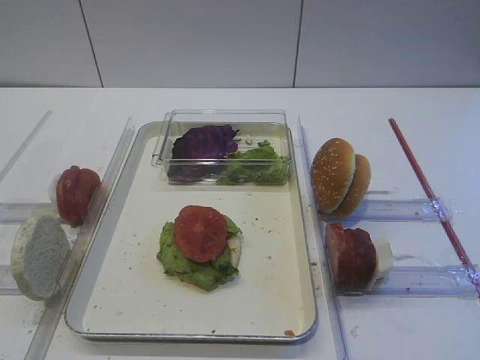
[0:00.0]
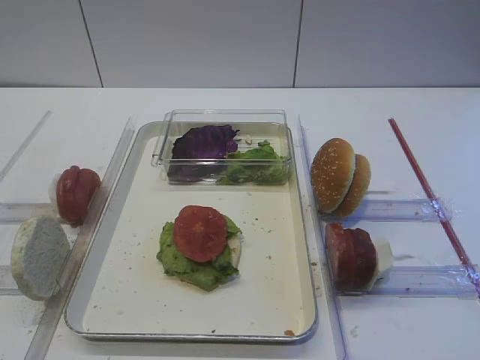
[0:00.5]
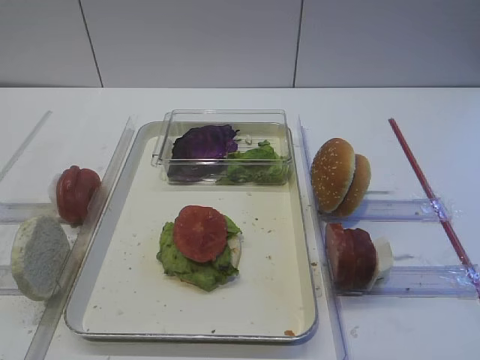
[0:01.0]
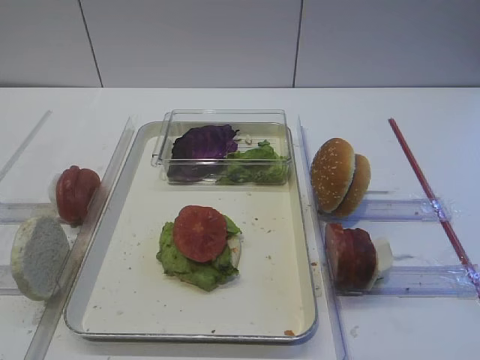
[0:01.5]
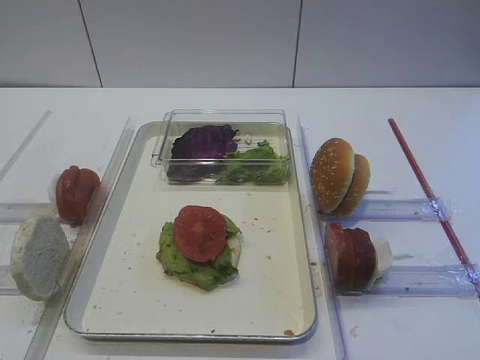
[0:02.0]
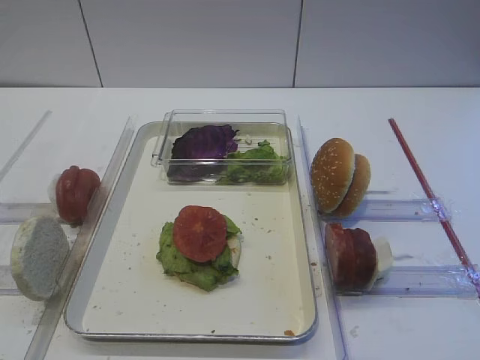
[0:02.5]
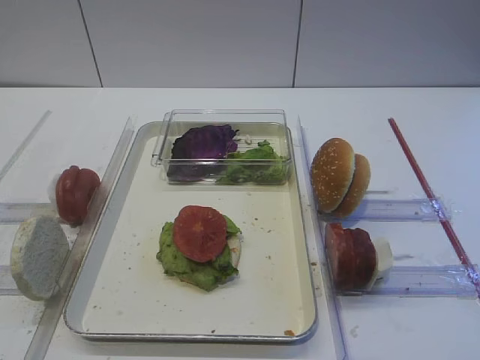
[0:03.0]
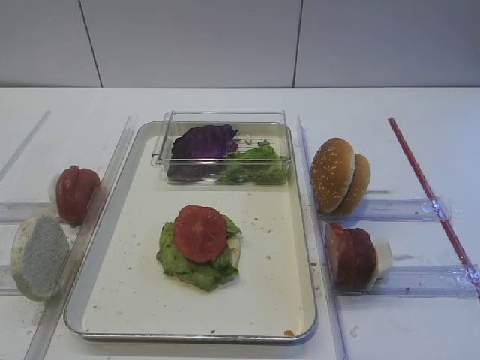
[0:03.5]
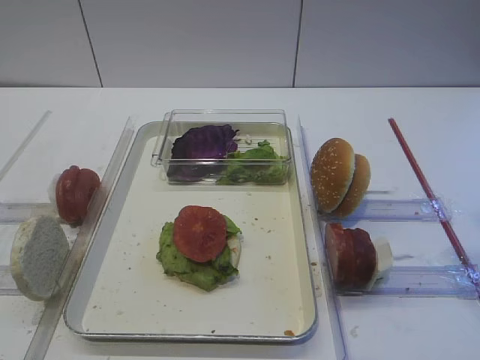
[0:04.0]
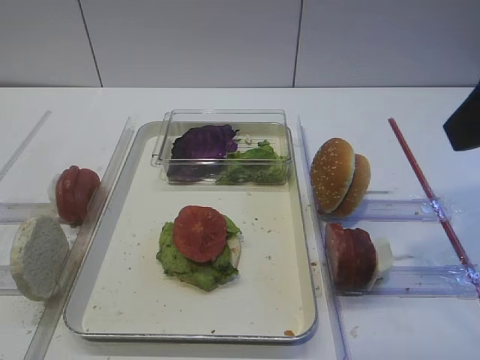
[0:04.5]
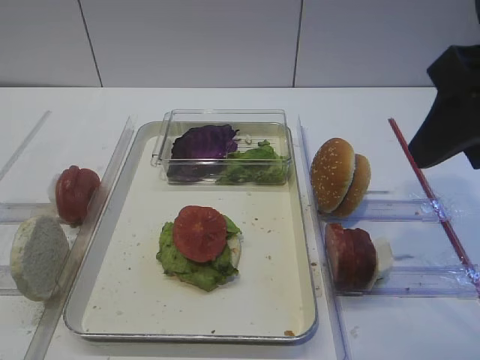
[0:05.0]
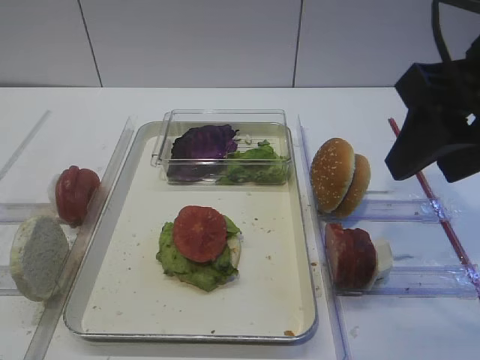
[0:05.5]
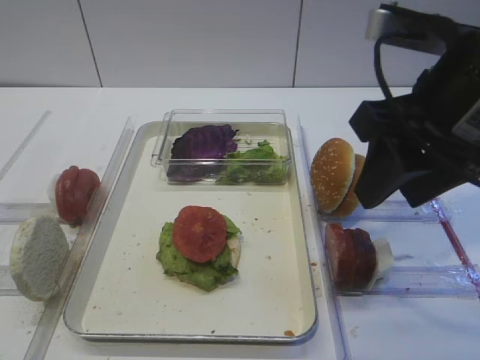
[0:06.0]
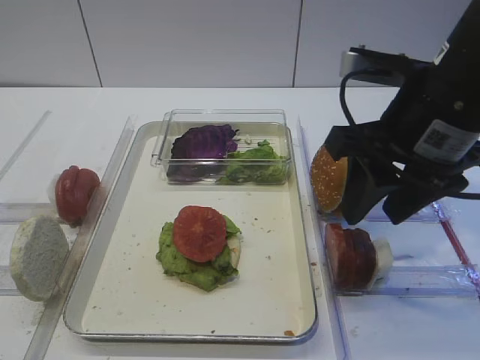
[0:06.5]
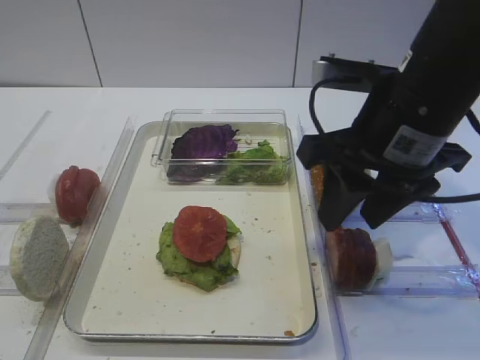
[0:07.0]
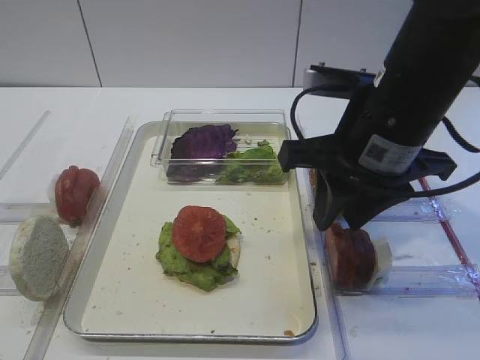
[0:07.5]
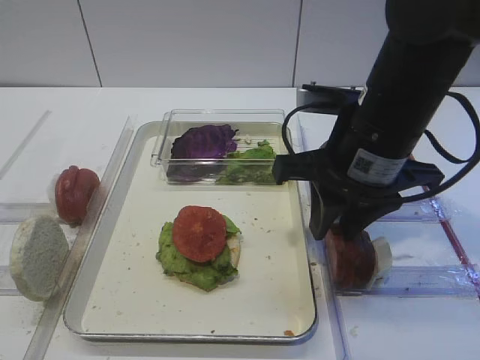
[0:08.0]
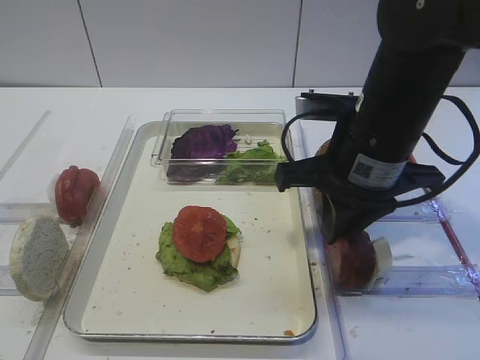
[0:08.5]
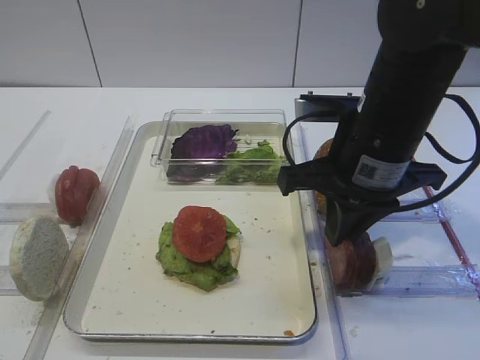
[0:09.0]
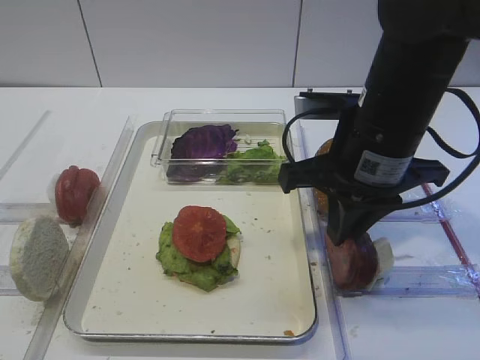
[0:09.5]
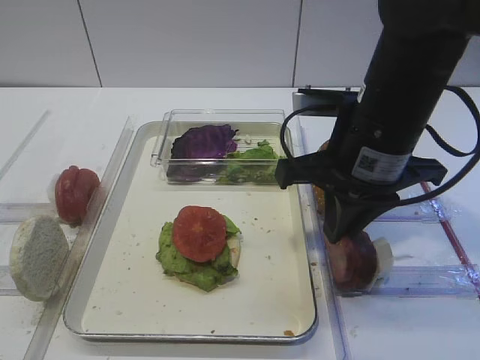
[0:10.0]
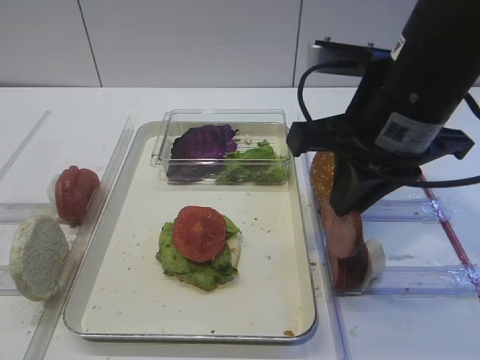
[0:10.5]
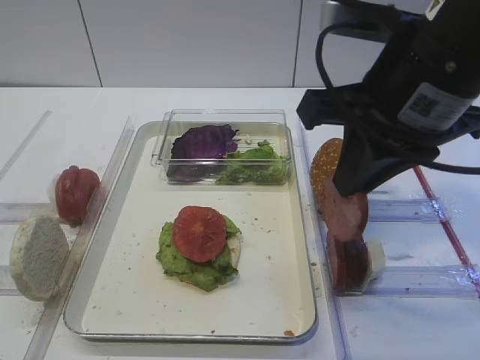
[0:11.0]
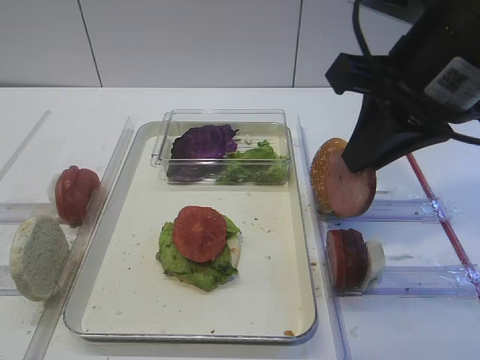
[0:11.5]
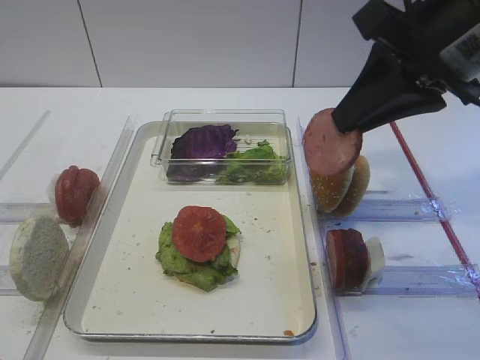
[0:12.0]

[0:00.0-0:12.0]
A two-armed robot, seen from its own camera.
Step, 0:00.0 to 0:10.5: Pick up the cutlet with the right gripper.
0:04.0 to 0:06.0: The right gripper shifts some 15 cm forward, downward and to the left.
0:06.0 to 0:08.0: The right gripper travels downward by some 5 cm.
0:08.0 to 0:10.0: The right gripper closes up.
0:10.0 to 0:12.0: The right gripper shifts approximately 10 cm upward and to the right.

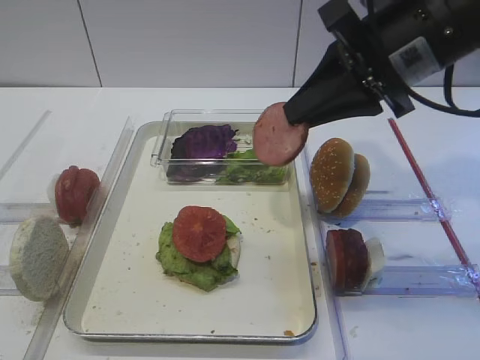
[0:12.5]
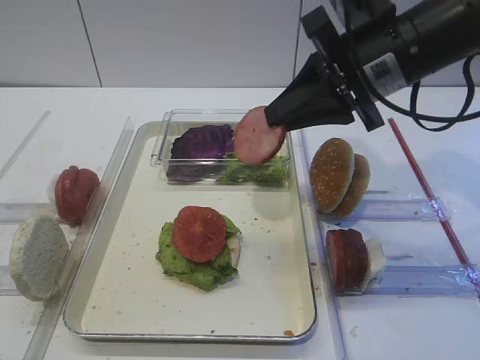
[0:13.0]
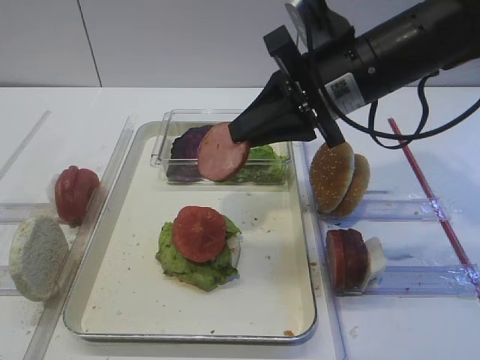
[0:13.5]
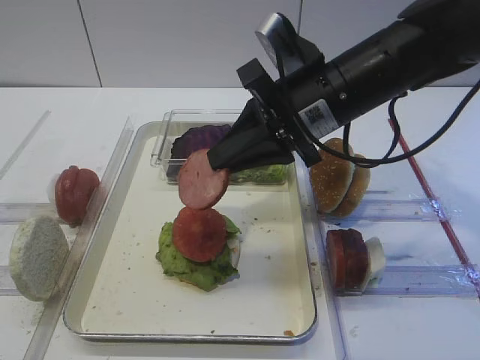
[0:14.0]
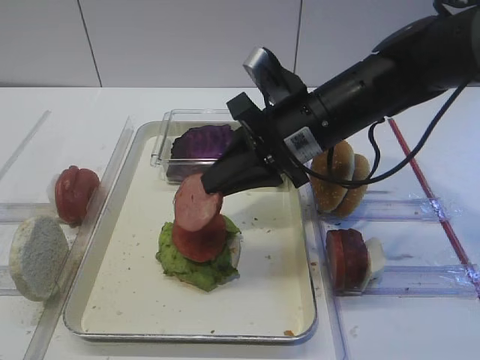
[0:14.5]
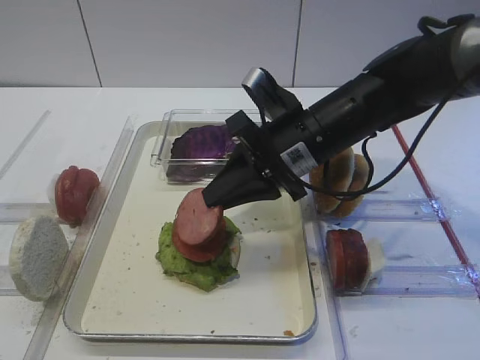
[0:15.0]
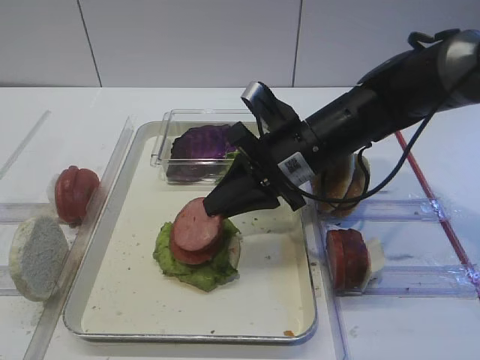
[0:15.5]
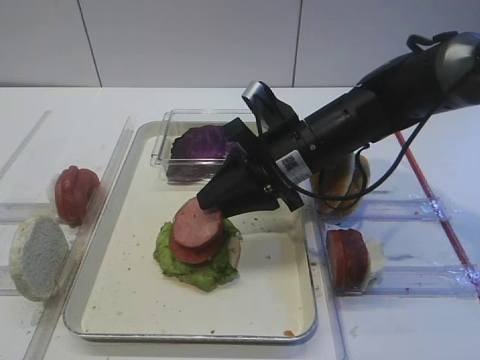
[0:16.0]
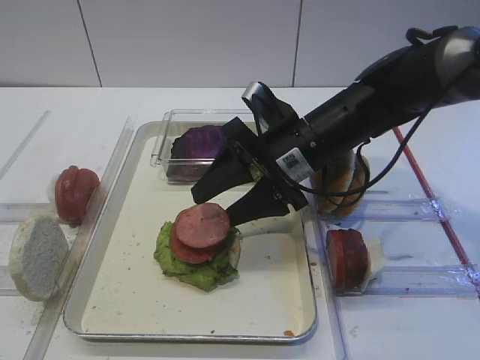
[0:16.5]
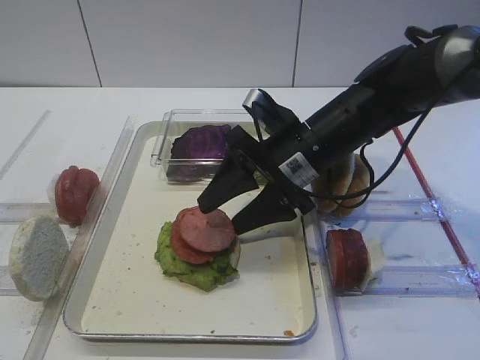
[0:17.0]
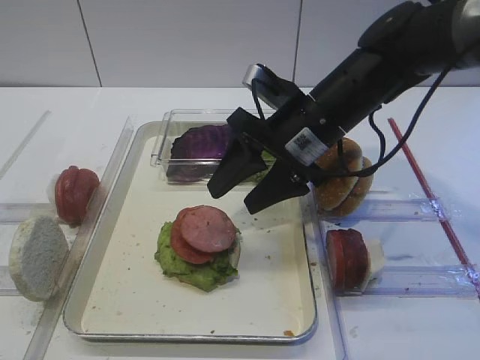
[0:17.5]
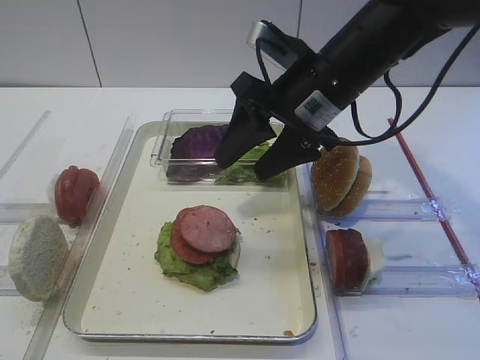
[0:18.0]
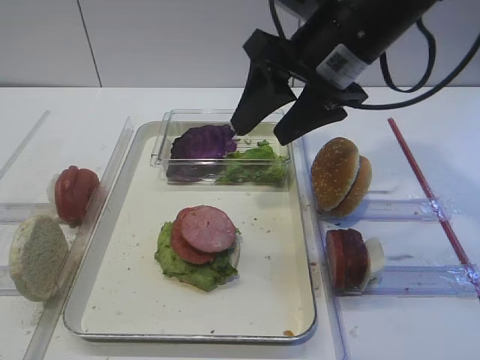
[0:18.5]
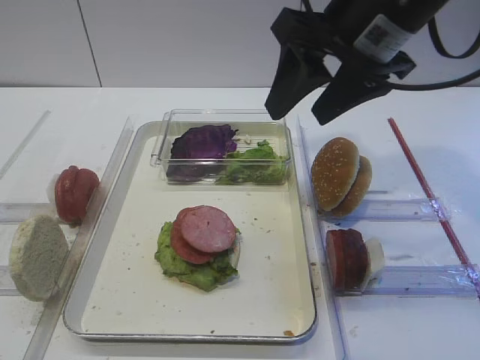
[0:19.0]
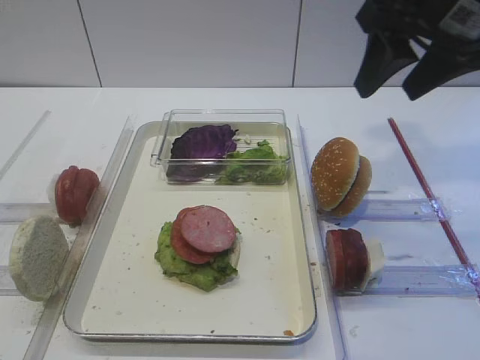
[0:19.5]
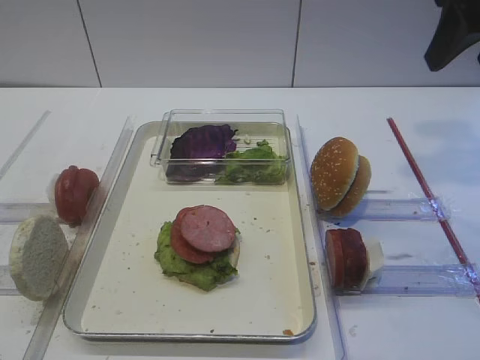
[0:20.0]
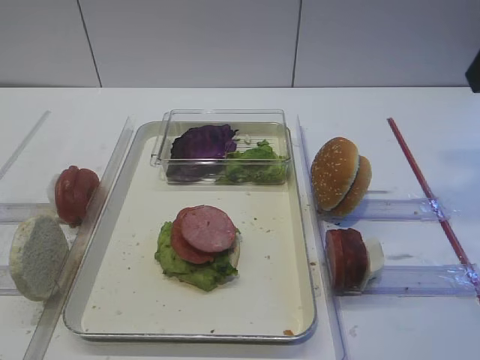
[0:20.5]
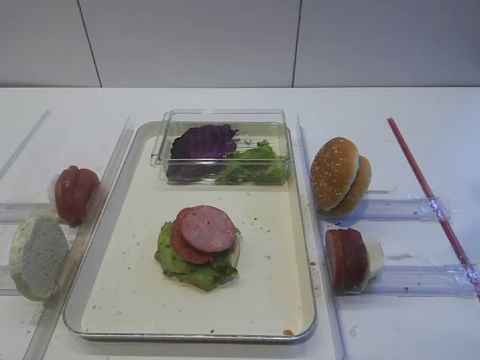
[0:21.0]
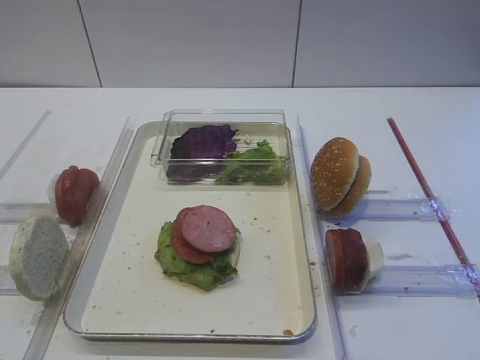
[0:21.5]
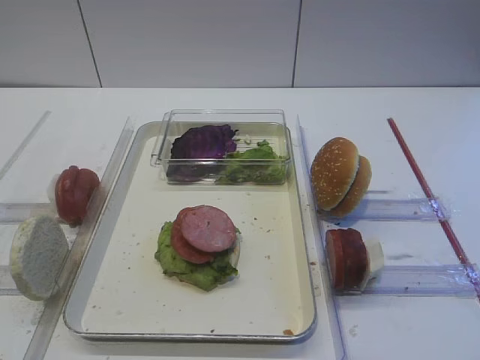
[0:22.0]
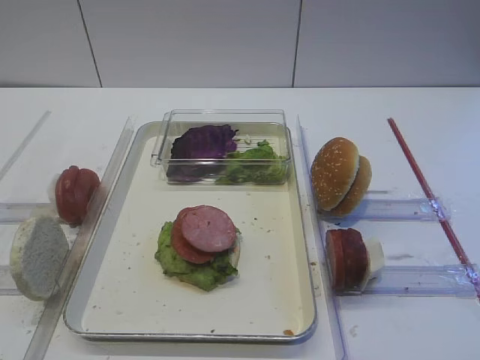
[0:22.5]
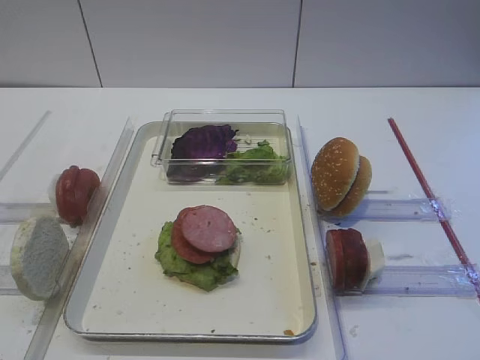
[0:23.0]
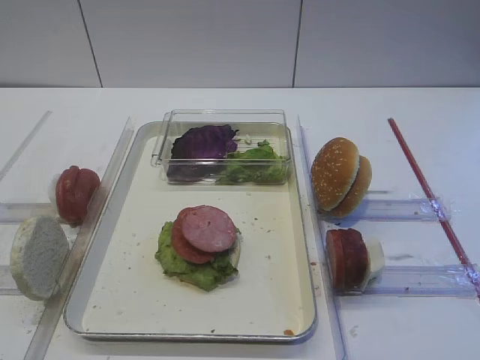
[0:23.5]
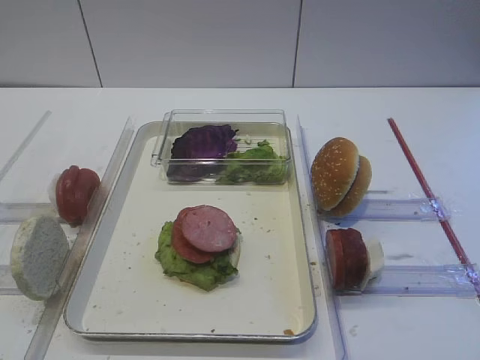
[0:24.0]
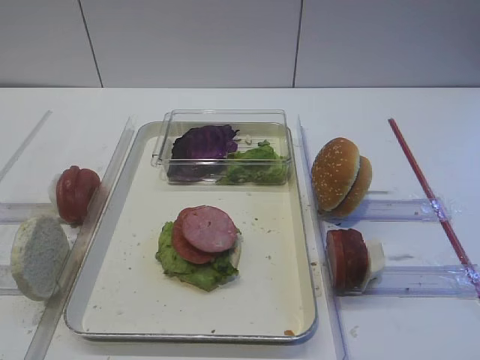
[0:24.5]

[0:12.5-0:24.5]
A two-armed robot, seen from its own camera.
Step, 0:12.5 to 0:17.5: Place the cutlet on the tomato slice with the right gripper.
0:12.5 to 0:14.5: The right gripper goes about 10 cm downward and to the left.
0:14.5 to 0:16.5: The right gripper opens its fingers.
0:16.5 to 0:18.5: The right gripper is displaced upward by approximately 10 cm.
0:18.5 to 0:20.5: The right gripper shifts about 20 cm to the right, backward and upward.

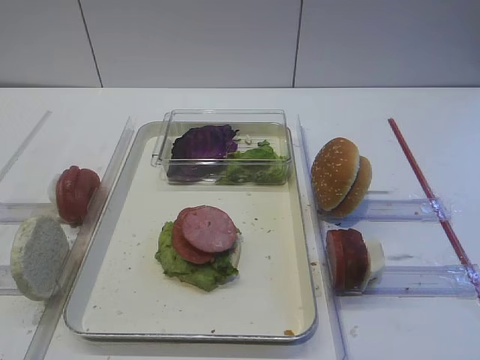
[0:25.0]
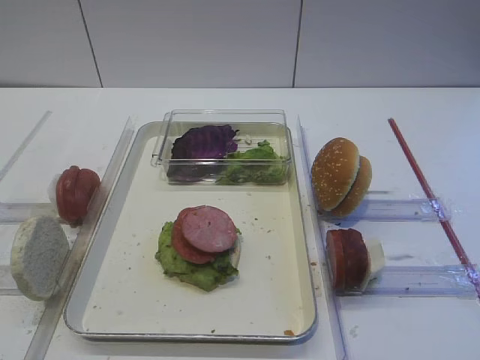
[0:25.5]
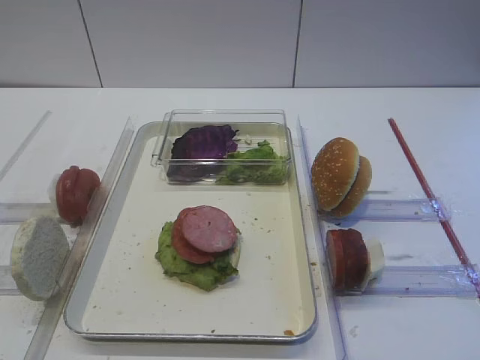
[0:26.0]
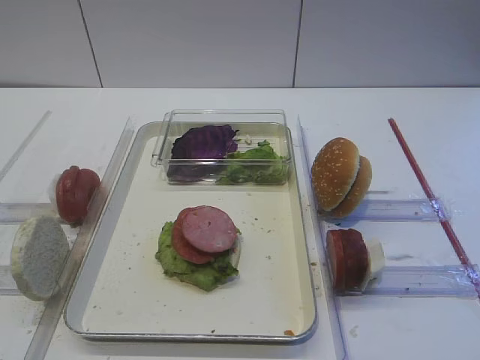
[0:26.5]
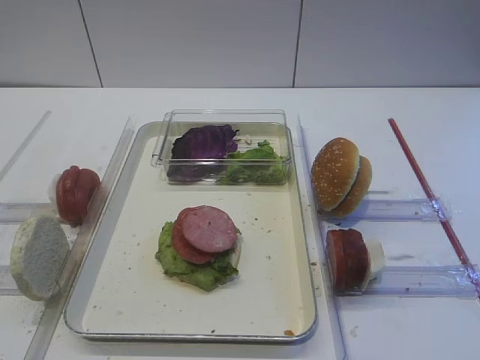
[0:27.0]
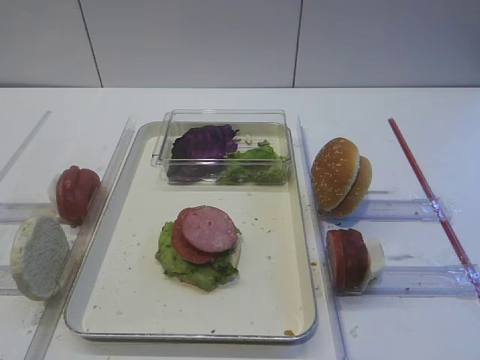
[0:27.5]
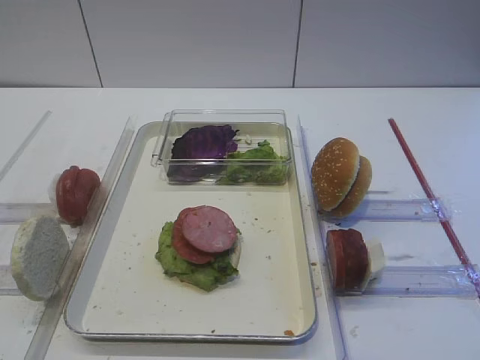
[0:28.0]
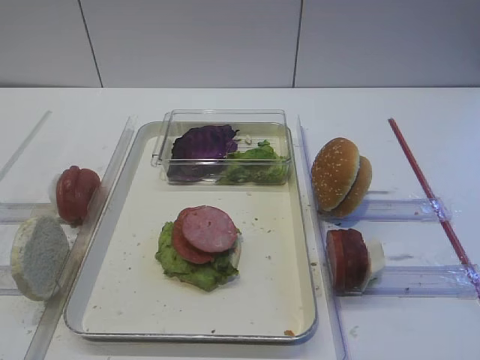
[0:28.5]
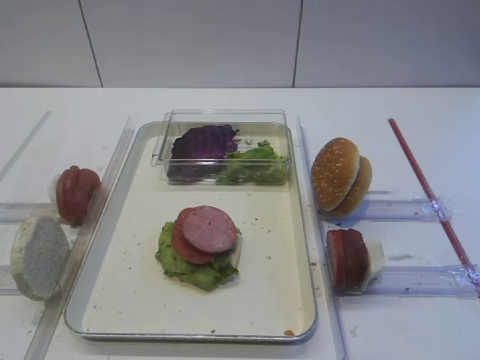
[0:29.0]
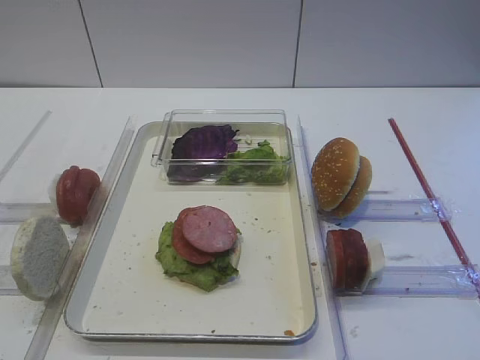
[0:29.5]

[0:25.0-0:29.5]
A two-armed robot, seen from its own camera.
0:25.0 to 0:29.5: Both grippers stay about where they are.
